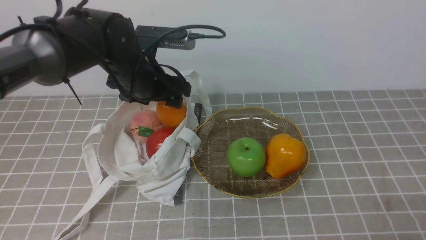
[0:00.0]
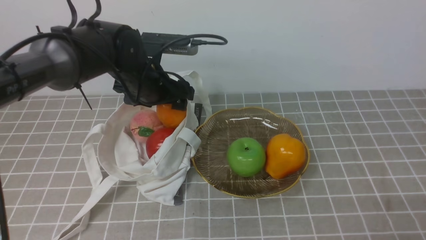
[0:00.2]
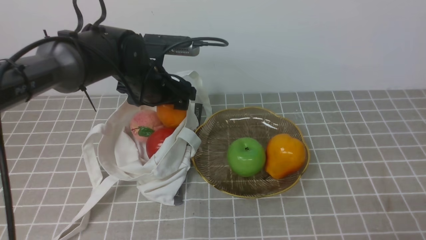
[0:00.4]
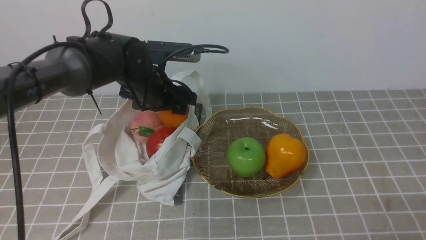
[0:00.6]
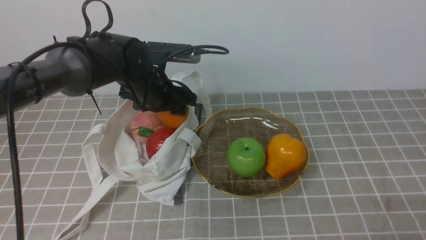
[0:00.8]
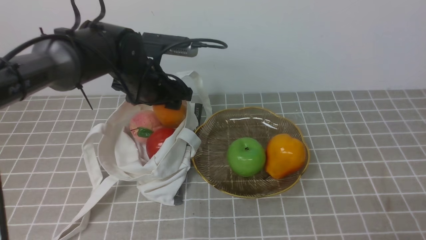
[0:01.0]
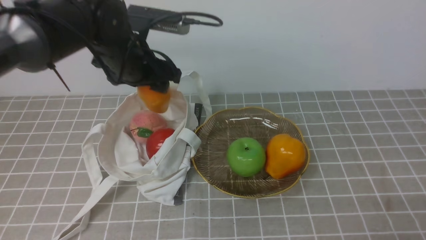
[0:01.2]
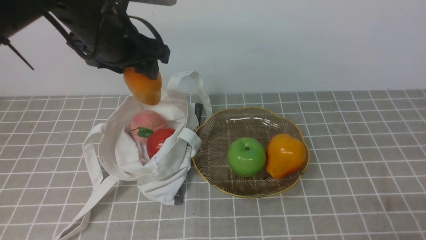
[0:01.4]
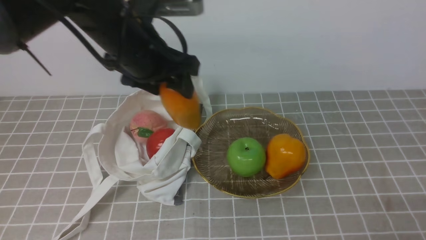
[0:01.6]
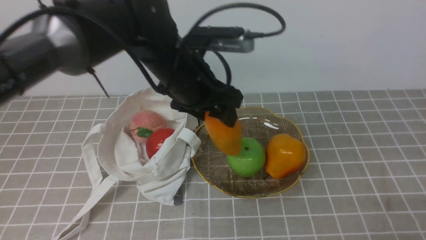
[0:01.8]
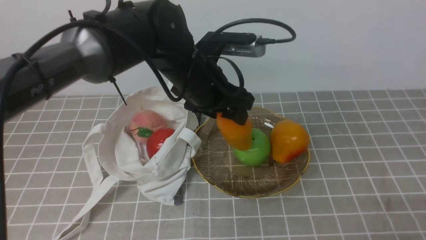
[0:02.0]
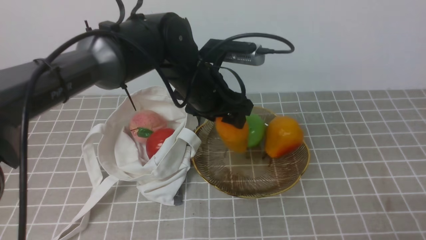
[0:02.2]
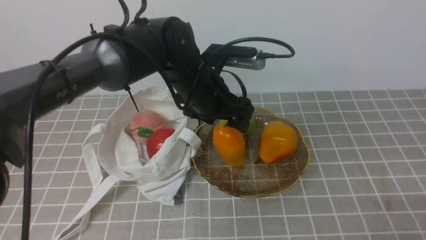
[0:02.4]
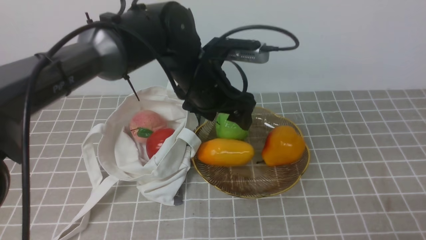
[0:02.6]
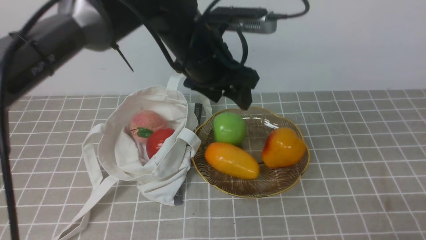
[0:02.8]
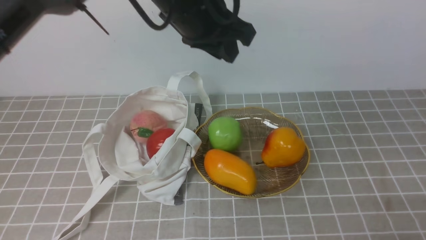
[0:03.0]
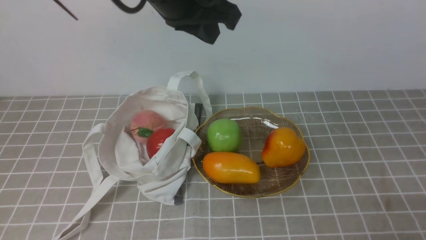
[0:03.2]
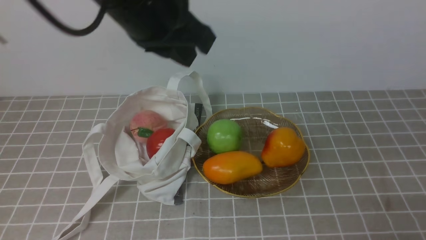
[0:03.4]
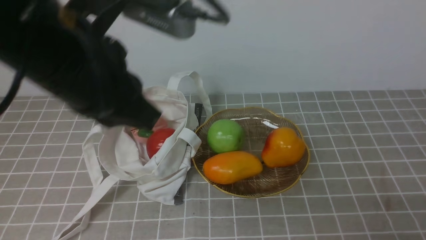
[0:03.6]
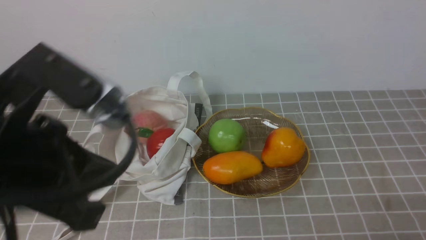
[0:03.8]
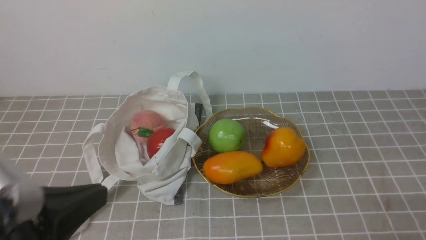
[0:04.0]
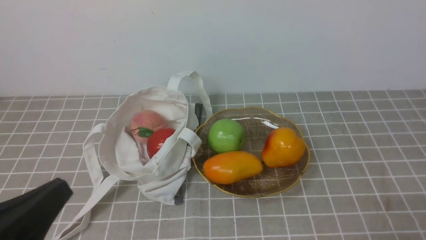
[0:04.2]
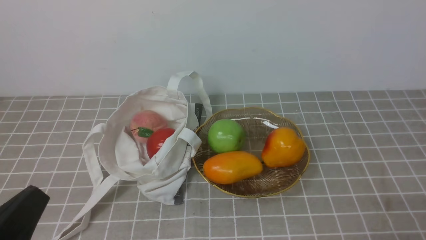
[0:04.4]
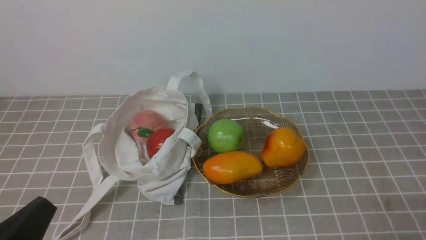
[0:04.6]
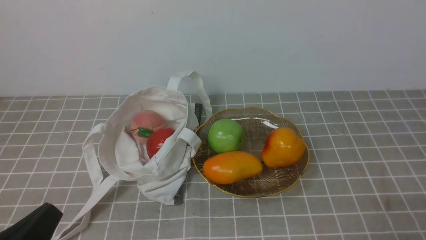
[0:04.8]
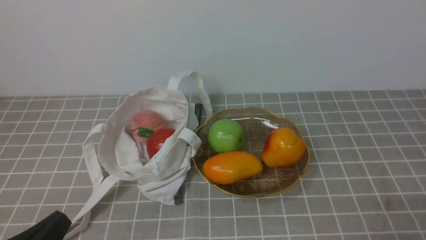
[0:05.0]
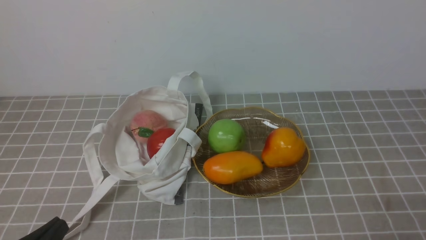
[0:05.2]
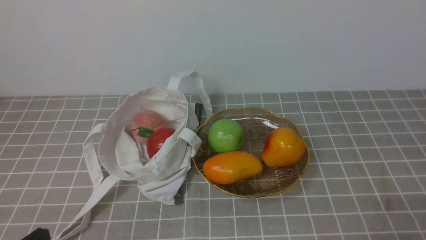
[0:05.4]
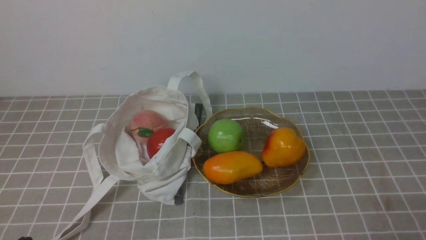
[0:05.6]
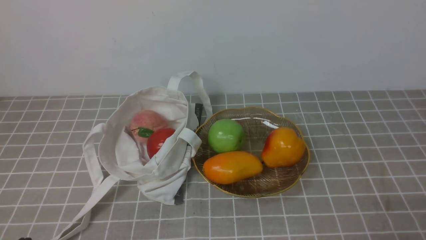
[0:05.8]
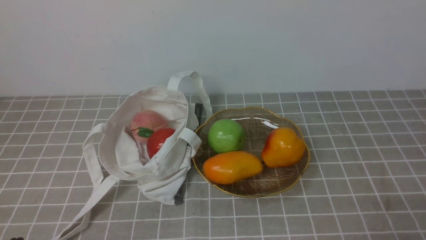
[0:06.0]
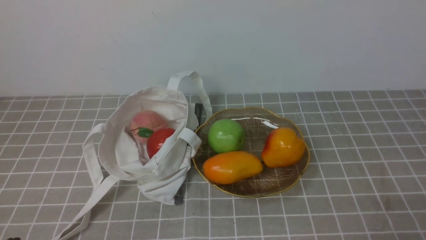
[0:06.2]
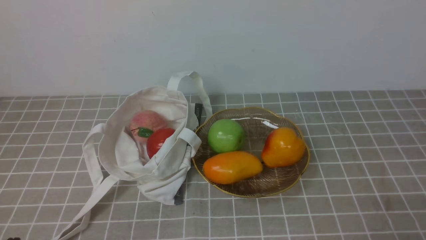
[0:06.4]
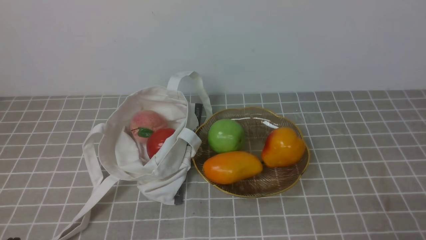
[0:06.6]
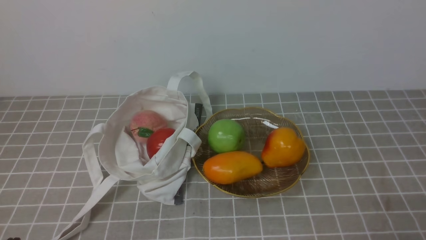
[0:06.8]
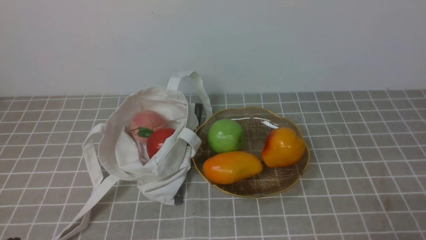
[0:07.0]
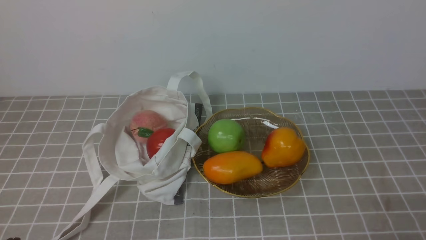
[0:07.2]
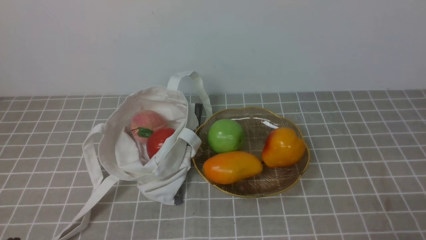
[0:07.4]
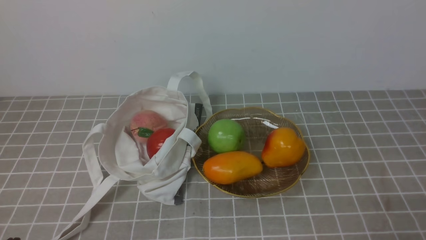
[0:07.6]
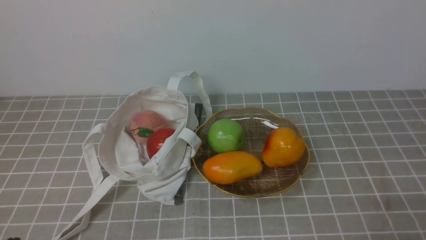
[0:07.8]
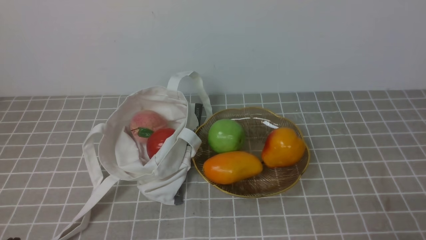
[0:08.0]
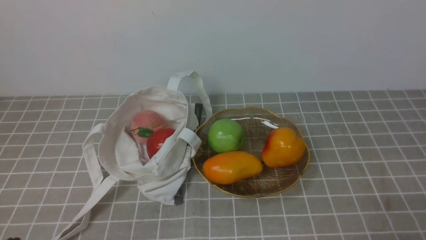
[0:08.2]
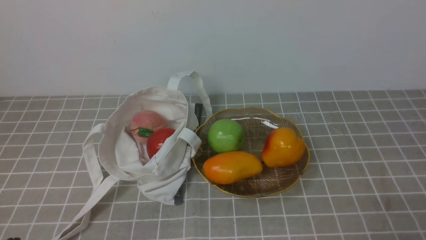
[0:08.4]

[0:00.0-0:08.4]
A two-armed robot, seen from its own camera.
Step, 0:01.2 to 0:02.8: use the left arm to put the mango into the empty plate on the right.
0:00.0 to 0:01.4: The left gripper heads upward, covering approximately 5 cm.
0:01.4 to 0:02.8: The left gripper moves to the right, about 10 cm.
0:02.8 to 0:04.2: The left gripper travels backward and to the left by some 35 cm, and closes.
0:04.2 to 0:05.6: The left gripper shifts roughly 10 cm downward.
0:07.0 to 0:08.4: The two grippers keep their place.
